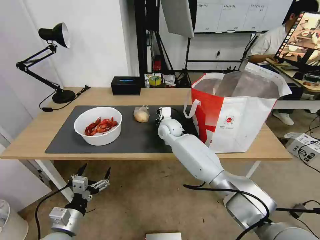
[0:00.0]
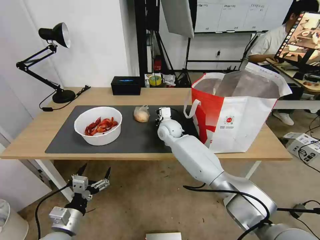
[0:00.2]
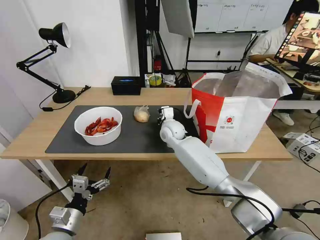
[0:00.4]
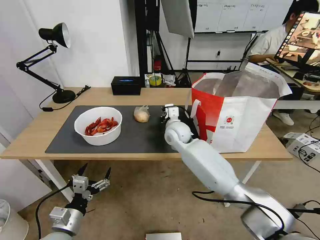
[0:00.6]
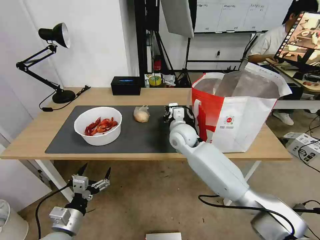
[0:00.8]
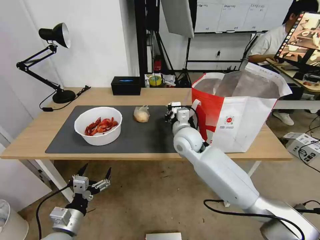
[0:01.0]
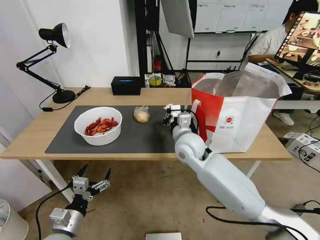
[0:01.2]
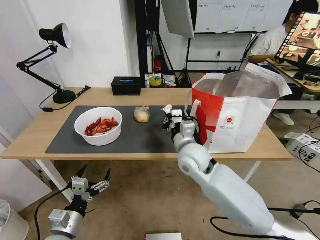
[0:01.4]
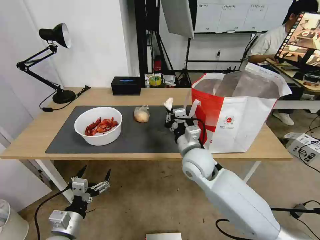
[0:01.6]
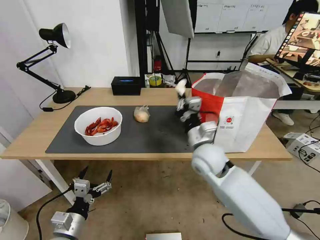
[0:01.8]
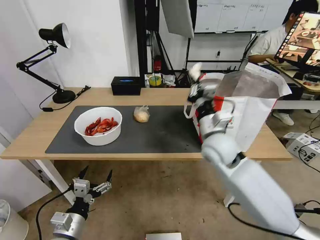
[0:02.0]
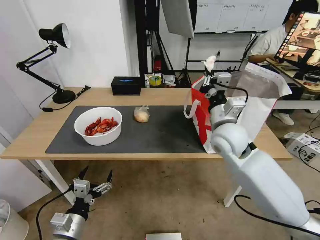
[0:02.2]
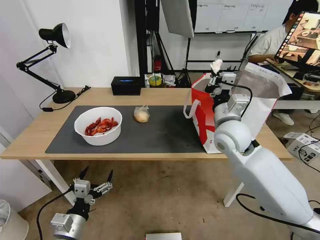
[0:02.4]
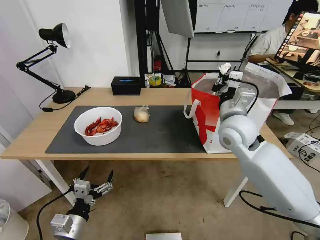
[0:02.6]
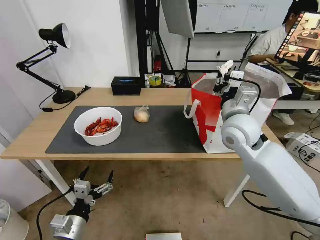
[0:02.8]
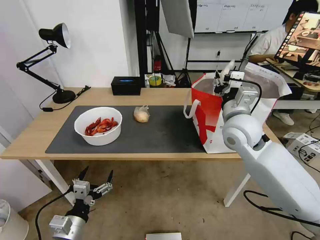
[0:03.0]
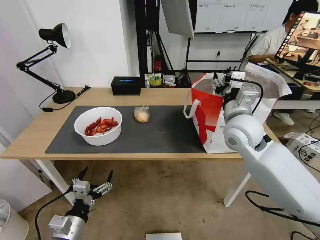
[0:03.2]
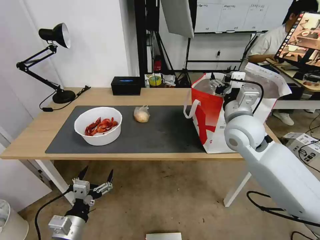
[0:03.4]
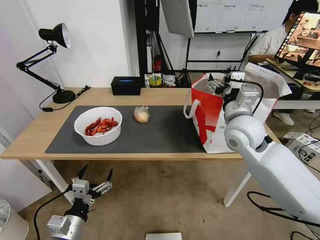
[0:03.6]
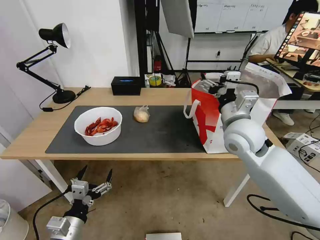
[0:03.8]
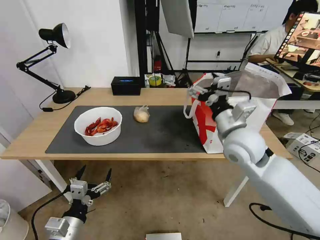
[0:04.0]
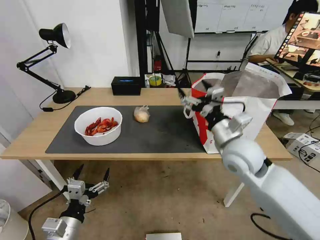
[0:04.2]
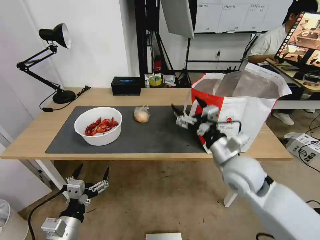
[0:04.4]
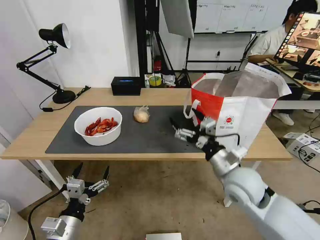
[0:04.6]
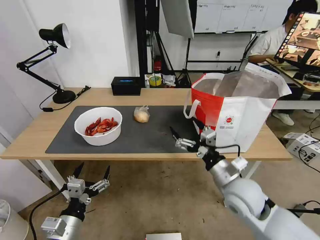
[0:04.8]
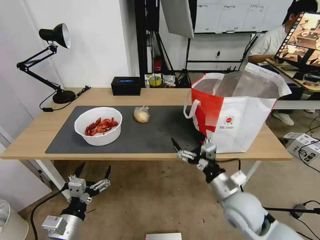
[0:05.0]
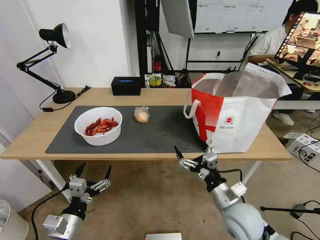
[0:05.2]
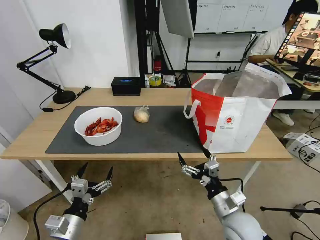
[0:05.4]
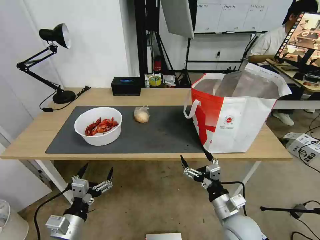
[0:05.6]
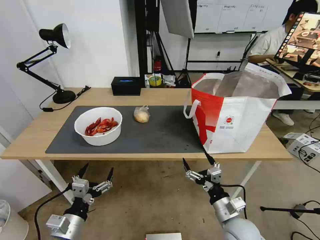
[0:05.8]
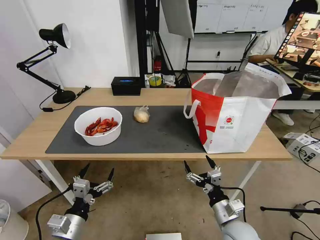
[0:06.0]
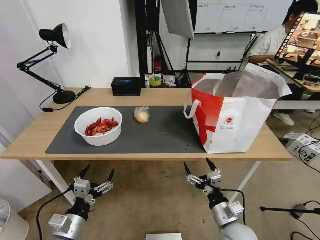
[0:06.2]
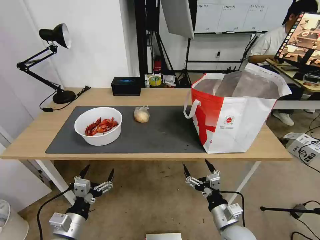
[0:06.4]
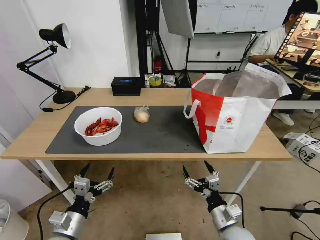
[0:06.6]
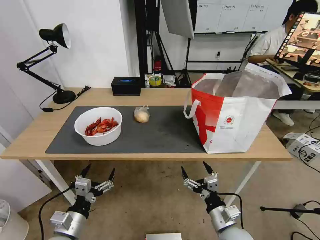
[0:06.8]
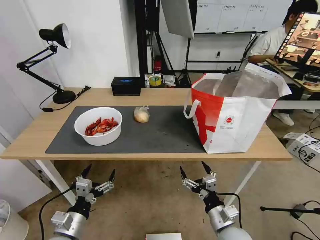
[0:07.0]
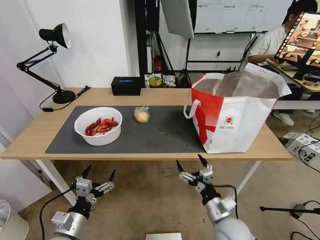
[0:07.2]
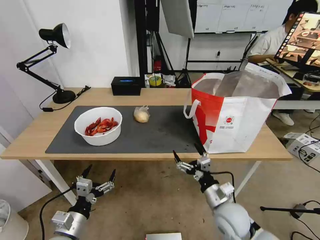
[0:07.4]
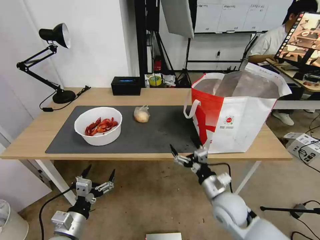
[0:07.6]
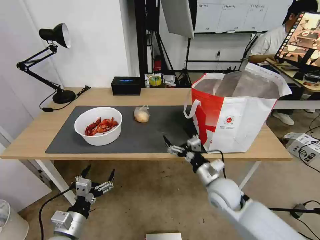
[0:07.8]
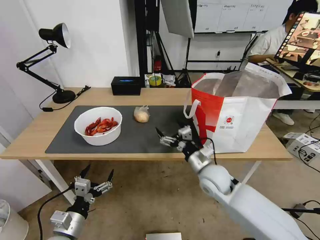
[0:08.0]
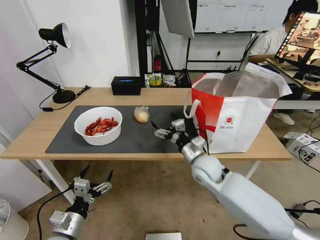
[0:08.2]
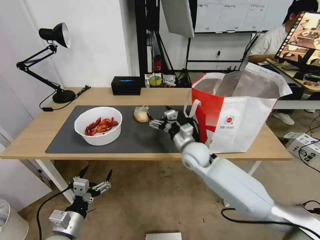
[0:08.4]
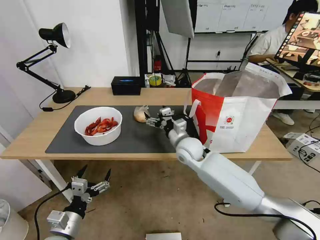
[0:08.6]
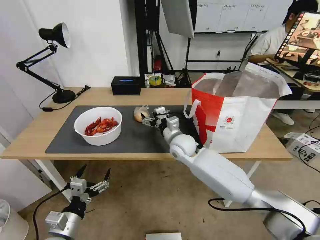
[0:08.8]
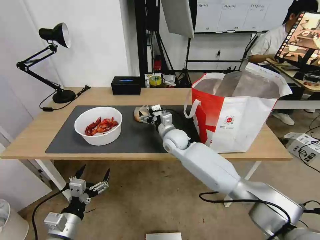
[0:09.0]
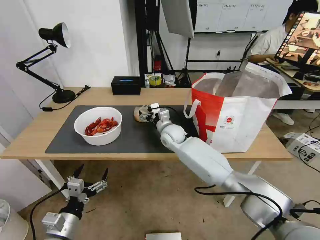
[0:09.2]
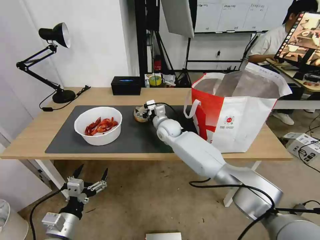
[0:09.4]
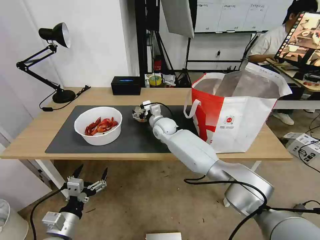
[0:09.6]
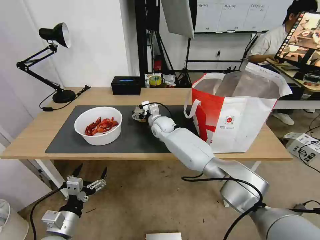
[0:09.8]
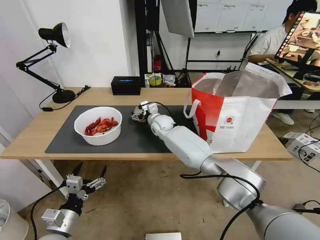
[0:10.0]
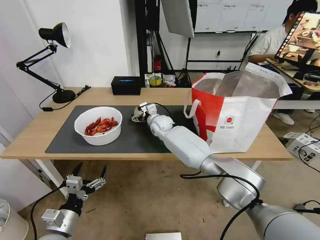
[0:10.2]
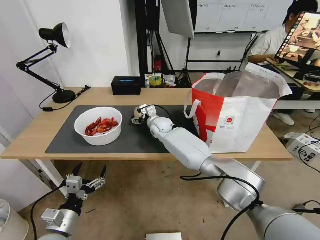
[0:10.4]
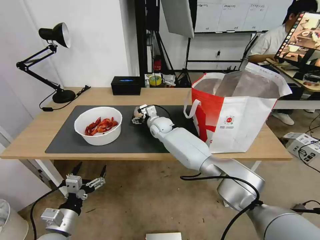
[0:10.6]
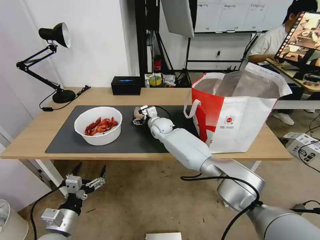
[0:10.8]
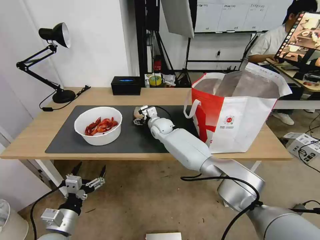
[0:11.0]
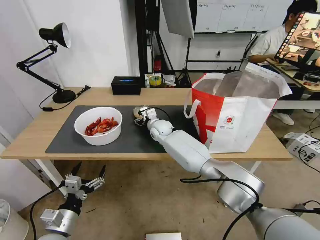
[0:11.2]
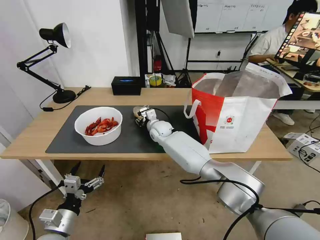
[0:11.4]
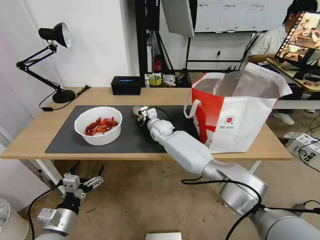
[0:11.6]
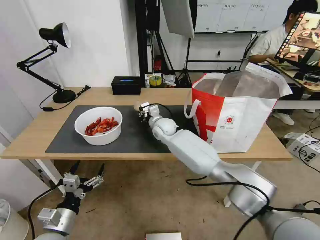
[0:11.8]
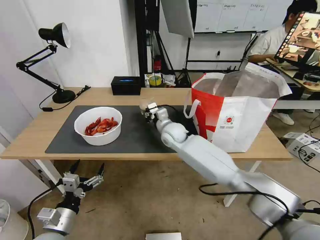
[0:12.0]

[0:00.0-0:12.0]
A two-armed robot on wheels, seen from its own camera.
Task of the whole recording: Pick up the trash from the table and place it into the takeout bag.
0:00.0 to 0:01.6: The right gripper travels backward by about 20 cm.
0:01.6 to 0:03.0: The right gripper shifts about 15 cm upward and to the right, and opens its fingers.
0:03.0 to 0:04.4: The right gripper travels backward and downward by roughly 10 cm, and opens up.
0:04.4 to 0:06.0: The right gripper goes approximately 20 cm downward and backward.
0:06.0 to 0:07.6: The right gripper shifts about 10 cm forward.
0:07.6 to 0:09.0: The right gripper shifts some 25 cm forward and to the left.
0:09.0 to 0:10.4: The right gripper shifts roughly 10 cm forward and to the left.
0:10.4 to 0:12.0: The right gripper goes about 5 cm backward, and closes.

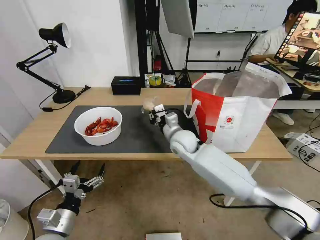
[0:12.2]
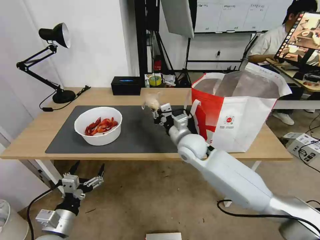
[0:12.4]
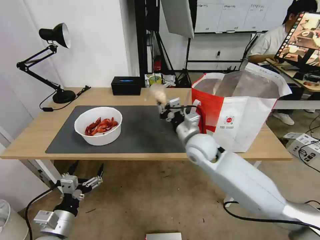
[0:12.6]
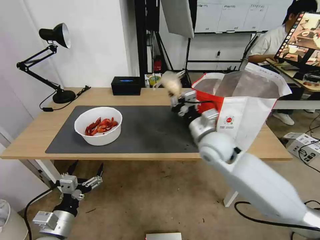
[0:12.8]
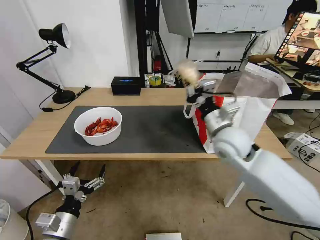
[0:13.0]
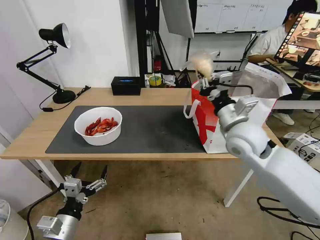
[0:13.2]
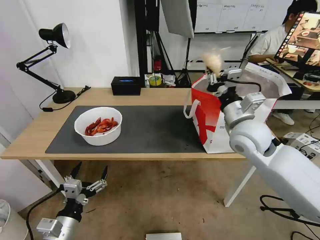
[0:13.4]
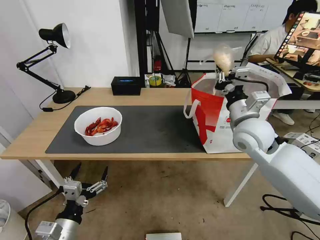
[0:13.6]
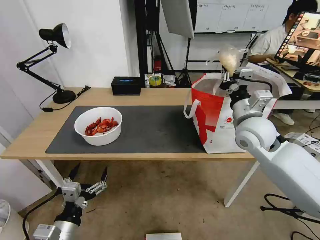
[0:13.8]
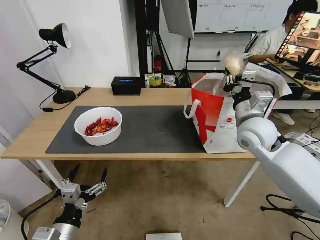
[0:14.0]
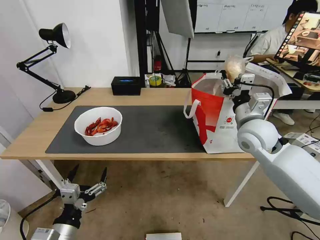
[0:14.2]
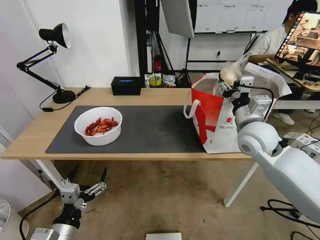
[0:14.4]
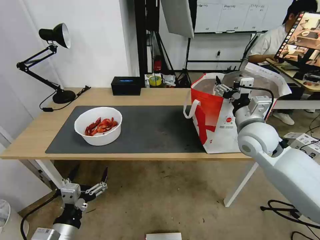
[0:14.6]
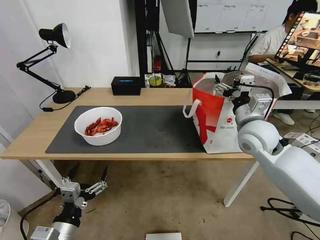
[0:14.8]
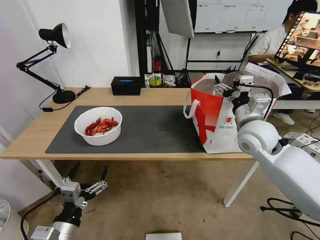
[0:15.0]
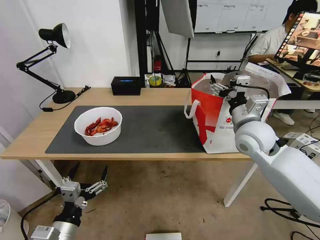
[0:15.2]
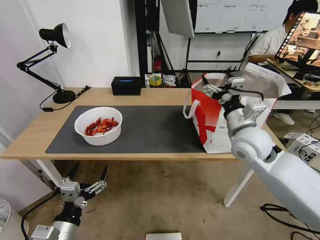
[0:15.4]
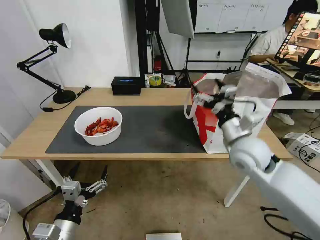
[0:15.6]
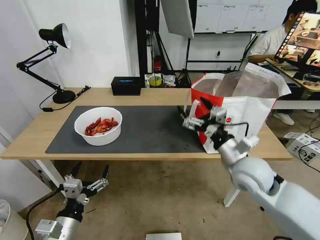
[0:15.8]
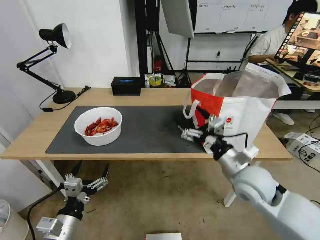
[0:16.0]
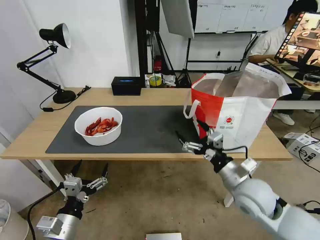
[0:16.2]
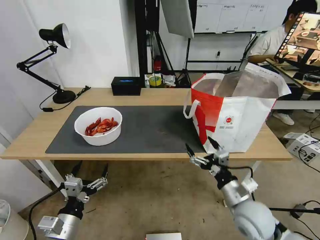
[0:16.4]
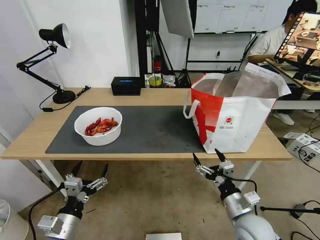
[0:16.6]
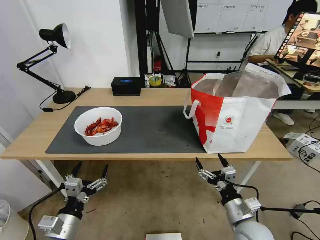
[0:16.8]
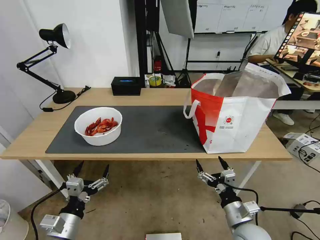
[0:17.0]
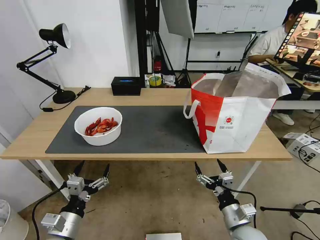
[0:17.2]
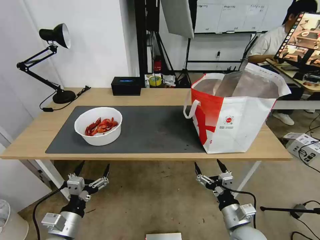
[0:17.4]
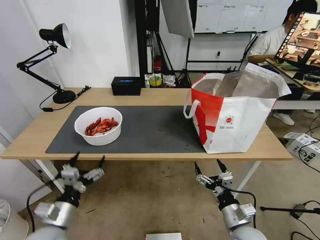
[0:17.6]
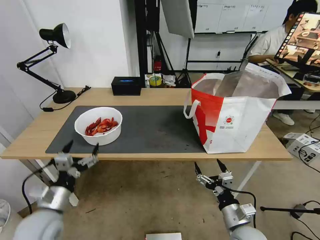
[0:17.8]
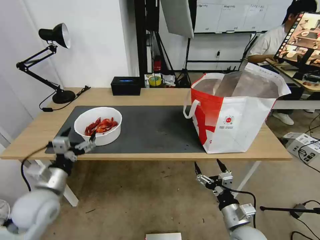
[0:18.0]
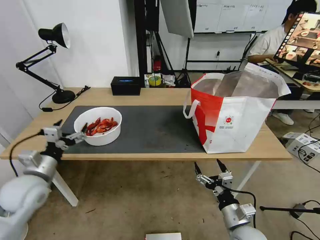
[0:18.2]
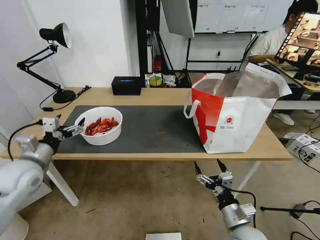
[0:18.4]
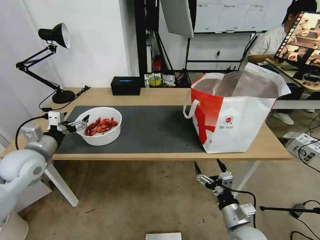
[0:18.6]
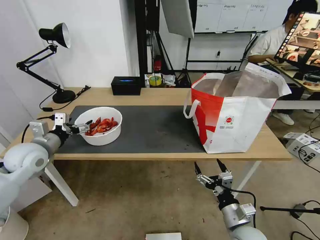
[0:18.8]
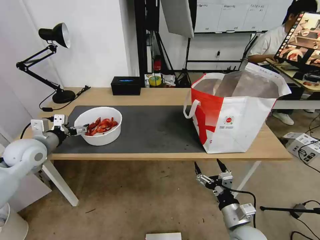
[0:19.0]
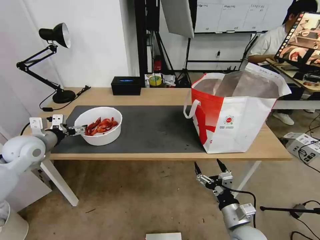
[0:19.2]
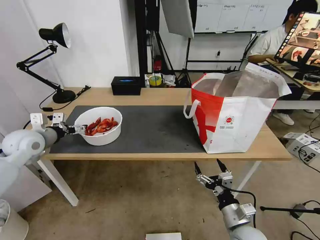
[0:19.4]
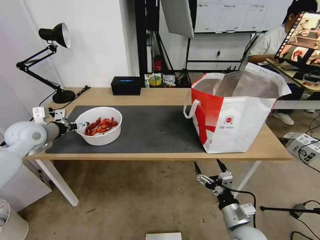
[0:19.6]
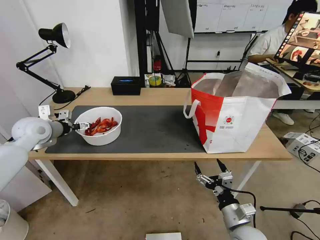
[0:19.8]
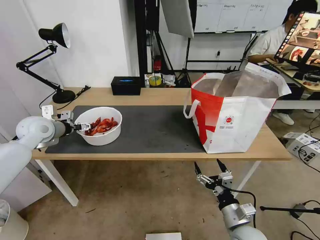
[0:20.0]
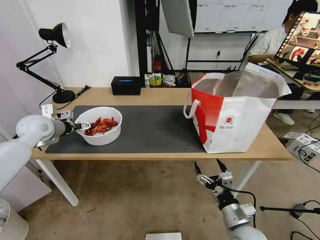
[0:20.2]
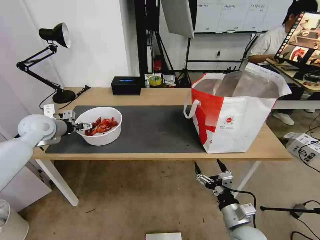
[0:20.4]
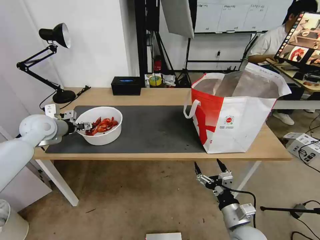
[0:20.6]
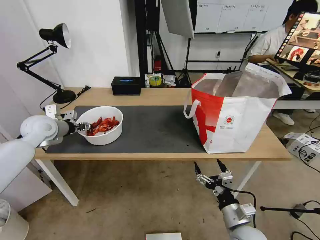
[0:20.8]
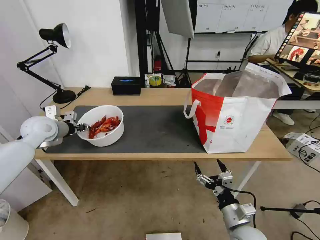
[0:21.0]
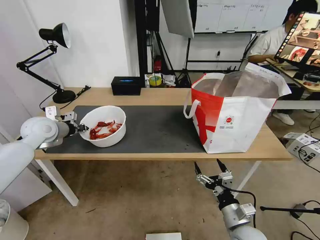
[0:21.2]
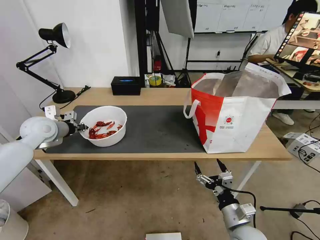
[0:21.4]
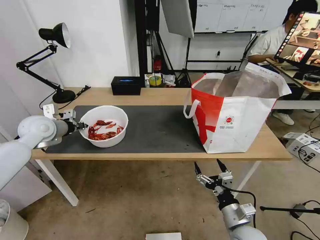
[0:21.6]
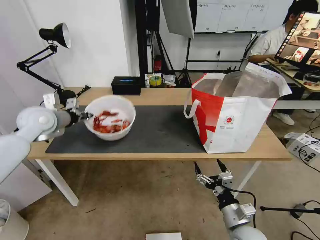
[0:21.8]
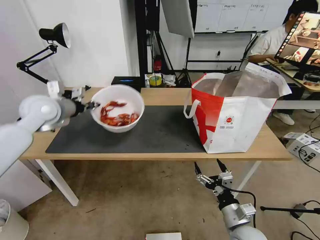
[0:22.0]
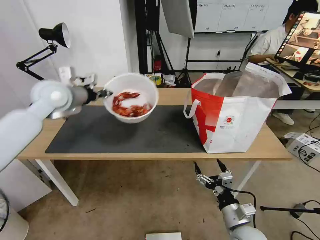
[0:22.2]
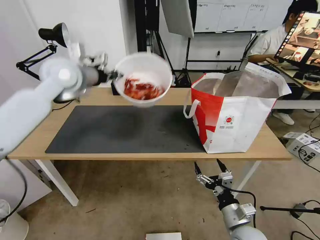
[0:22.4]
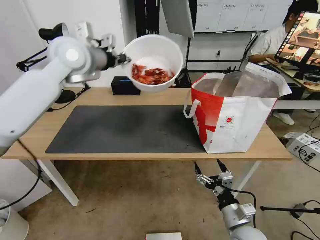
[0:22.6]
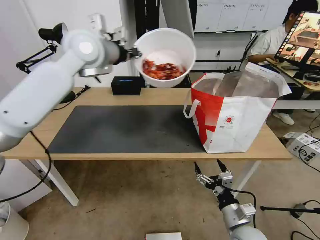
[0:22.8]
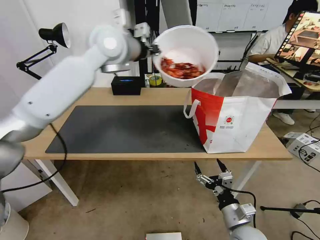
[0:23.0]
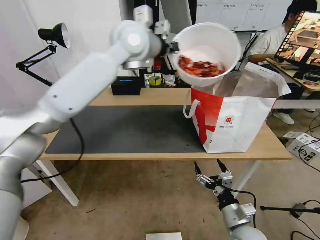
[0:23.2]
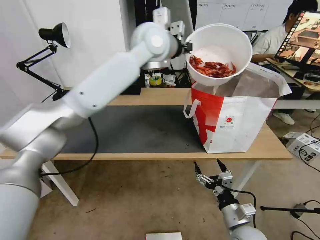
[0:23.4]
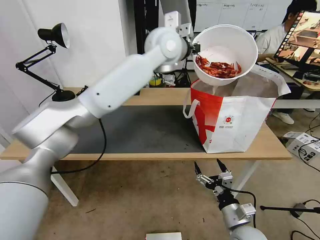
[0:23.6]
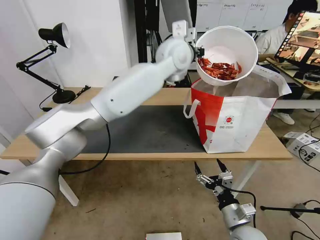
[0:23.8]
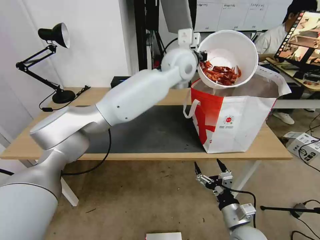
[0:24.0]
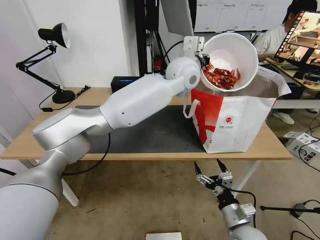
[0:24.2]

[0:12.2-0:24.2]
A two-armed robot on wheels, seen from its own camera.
Task of the whole recording: Pick up the trash from the table and place it into the takeout bag.
0:12.2 to 0:13.8: The left gripper shifts by approximately 5 cm, while the right gripper shifts about 20 cm to the right and upward.
0:13.8 to 0:15.2: The right gripper opens up.
0:15.2 to 0:16.6: The right gripper is displaced backward and downward by approximately 25 cm.
0:16.6 to 0:18.2: The left gripper travels forward, upward and to the left by about 20 cm.
0:18.2 to 0:19.8: The left gripper moves forward and upward, roughly 20 cm.
0:19.8 to 0:21.2: The left gripper closes.
0:21.2 to 0:22.6: The left gripper moves upward and to the right, some 30 cm.
0:22.6 to 0:24.2: The left gripper shifts about 30 cm to the right.
